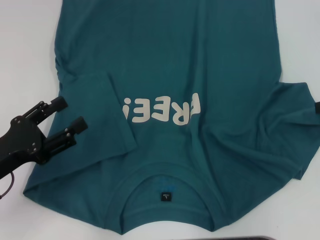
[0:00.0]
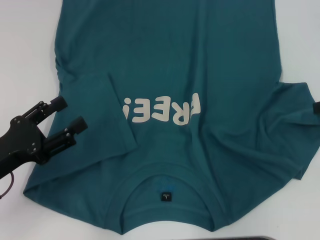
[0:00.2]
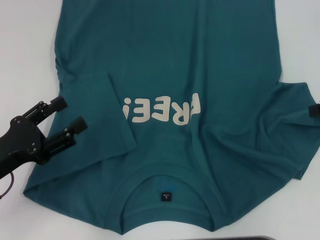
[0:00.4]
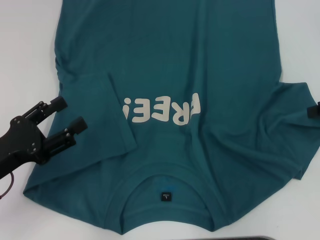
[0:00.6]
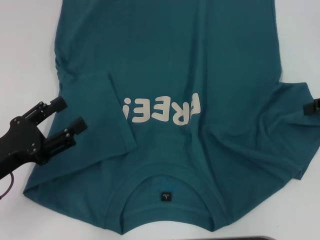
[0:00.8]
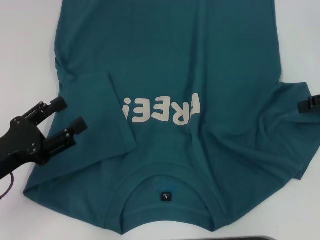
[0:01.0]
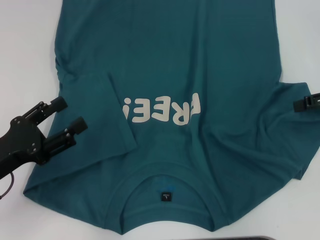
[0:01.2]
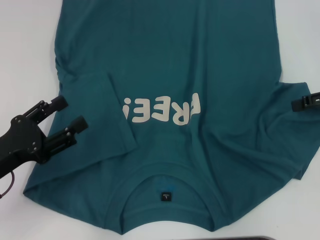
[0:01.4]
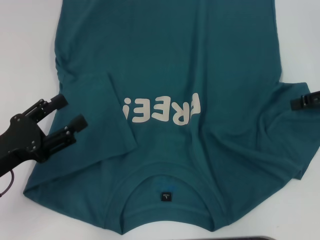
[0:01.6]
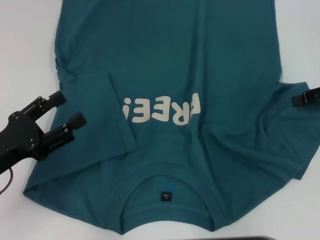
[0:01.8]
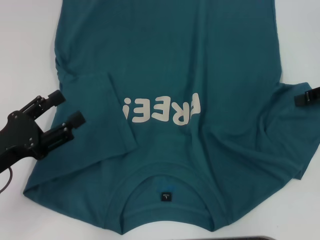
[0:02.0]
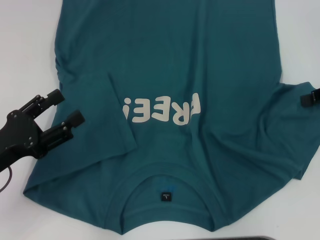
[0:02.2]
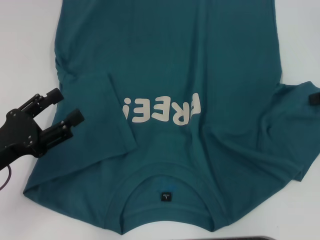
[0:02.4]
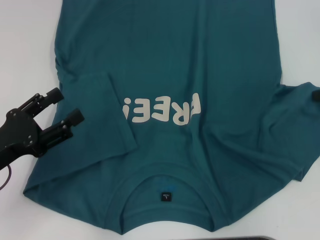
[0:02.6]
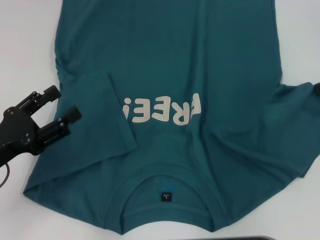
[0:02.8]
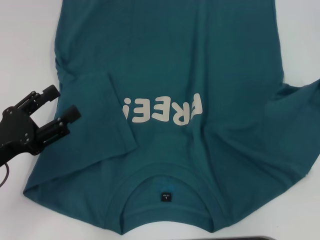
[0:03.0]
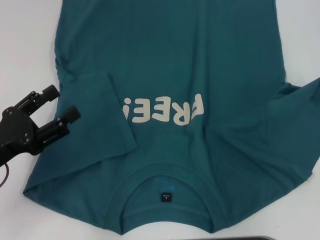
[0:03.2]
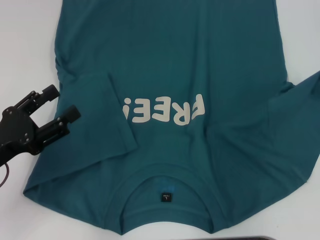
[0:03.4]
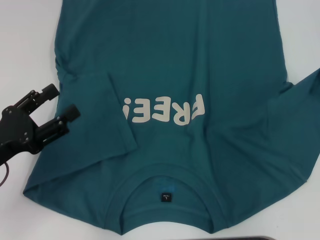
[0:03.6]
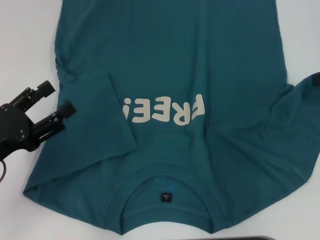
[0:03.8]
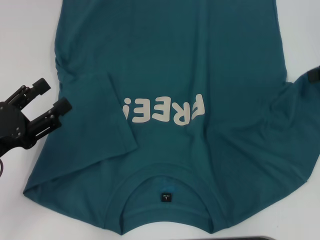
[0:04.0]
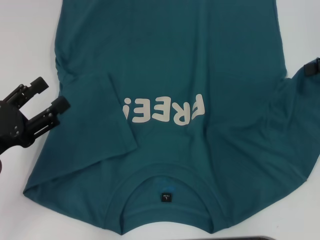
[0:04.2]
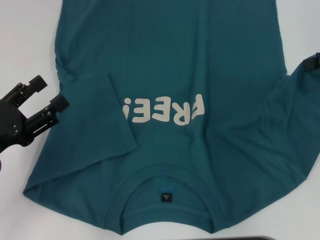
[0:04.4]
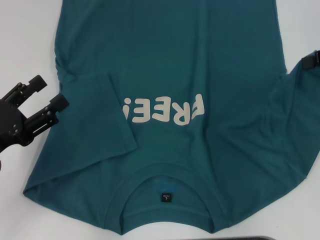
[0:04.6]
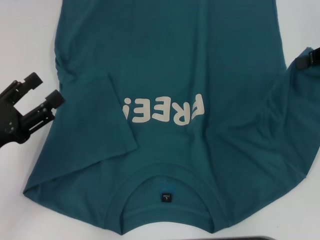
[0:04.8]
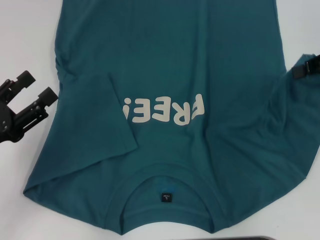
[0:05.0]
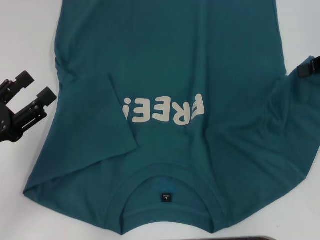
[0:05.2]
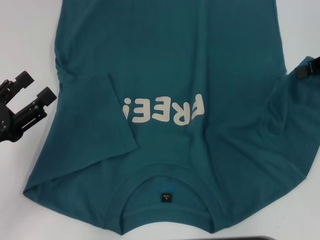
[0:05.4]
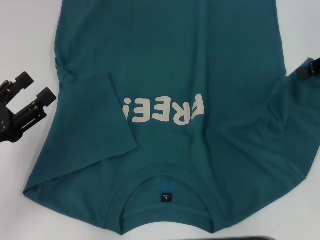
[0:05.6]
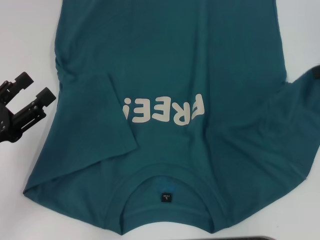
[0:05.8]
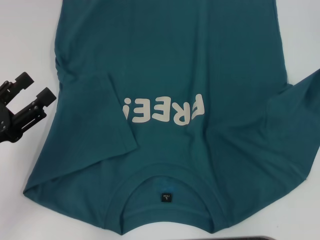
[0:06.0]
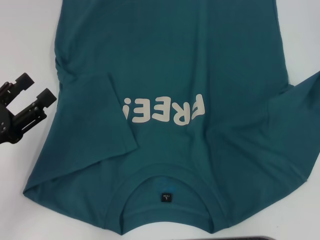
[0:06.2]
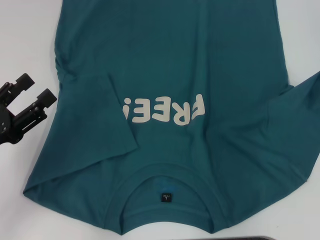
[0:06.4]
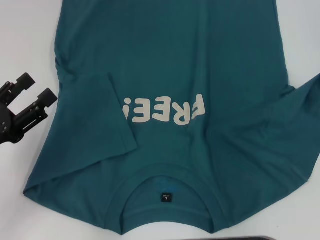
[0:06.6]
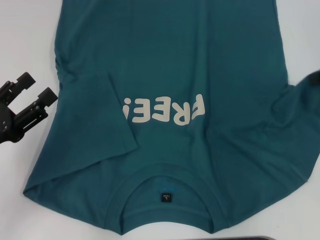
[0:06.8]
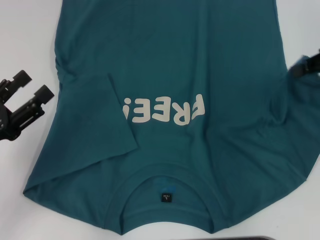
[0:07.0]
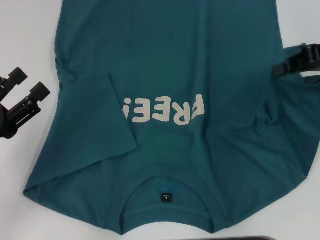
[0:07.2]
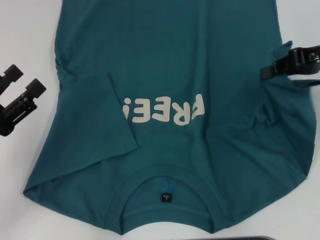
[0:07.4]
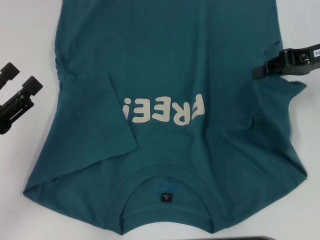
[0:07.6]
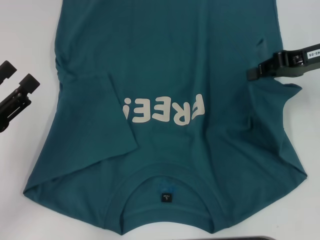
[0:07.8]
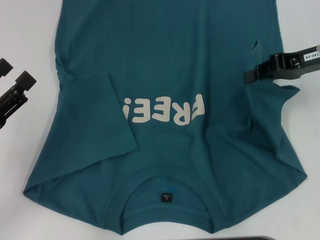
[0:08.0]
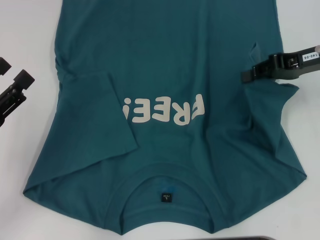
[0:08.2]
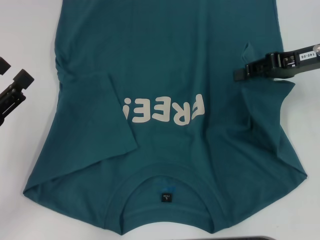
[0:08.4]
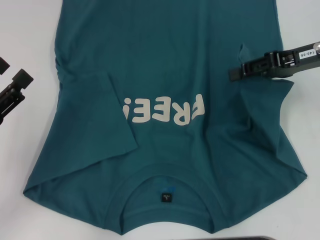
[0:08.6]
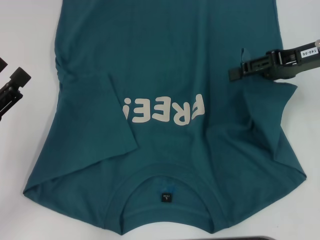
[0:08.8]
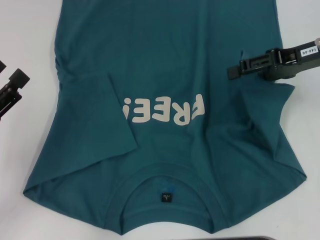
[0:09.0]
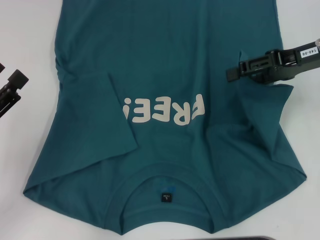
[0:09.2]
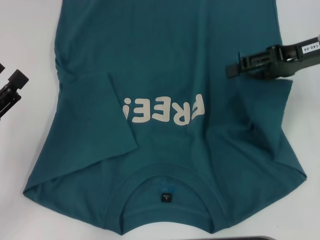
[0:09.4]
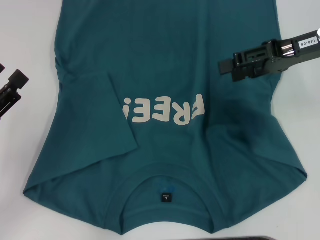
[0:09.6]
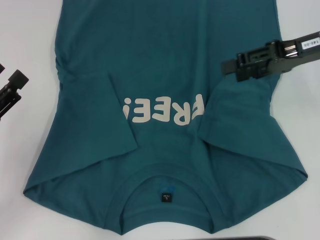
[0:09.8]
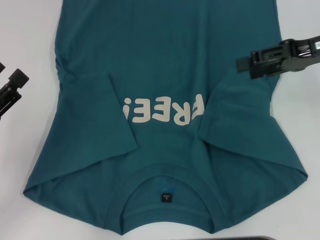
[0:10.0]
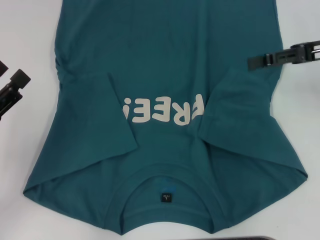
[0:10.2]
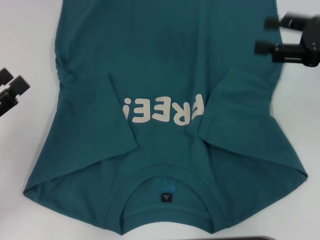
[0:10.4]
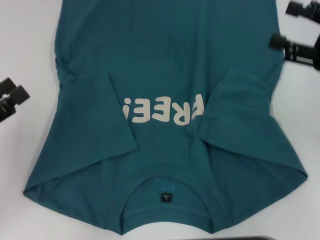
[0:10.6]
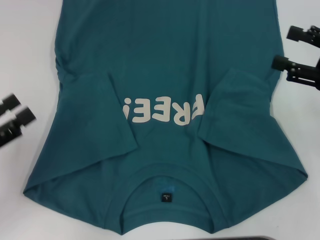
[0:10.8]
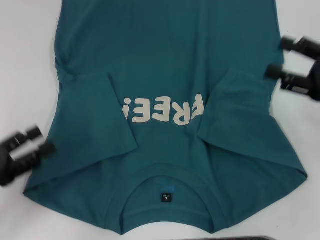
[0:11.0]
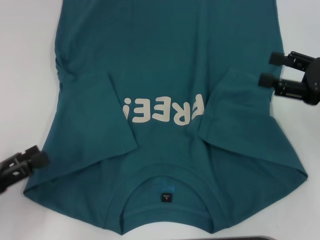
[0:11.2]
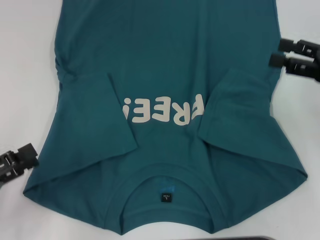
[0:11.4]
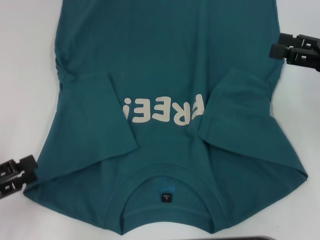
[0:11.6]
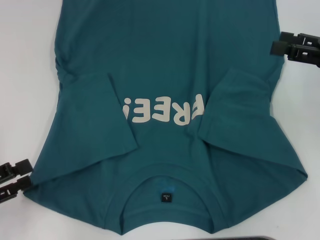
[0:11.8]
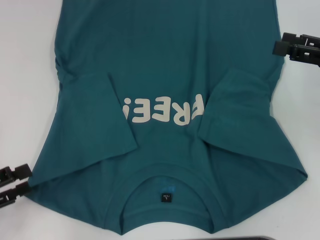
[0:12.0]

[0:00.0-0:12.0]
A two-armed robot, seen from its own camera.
Step, 0:00.0 to 0:09.6: Fold the bottom right sleeve to the right.
0:00.0 to 0:01.6: The grippers make only small movements.
0:01.6 to 0:03.0: The right gripper closes.
0:03.0 to 0:06.0: The grippers move only a little.
0:06.0 to 0:07.6: The right gripper moves to the left, about 10 cm.
0:07.6 to 0:09.0: The right gripper opens its fingers.
0:09.0 to 0:10.4: The right gripper goes some 5 cm backward.
0:10.4 to 0:12.0: The left gripper shifts roughly 5 cm backward.

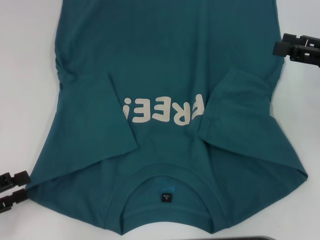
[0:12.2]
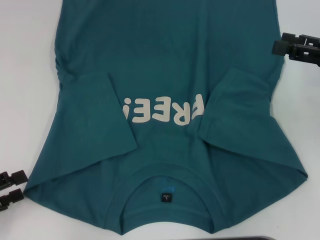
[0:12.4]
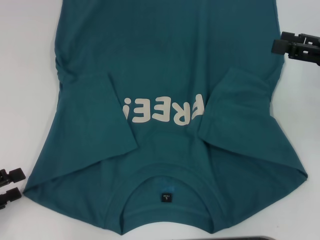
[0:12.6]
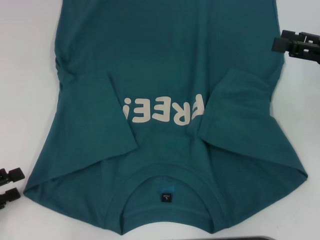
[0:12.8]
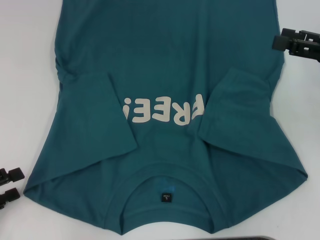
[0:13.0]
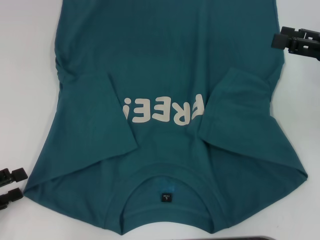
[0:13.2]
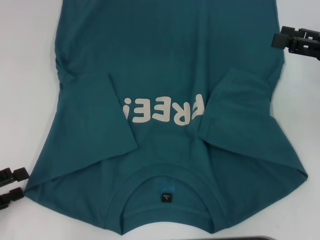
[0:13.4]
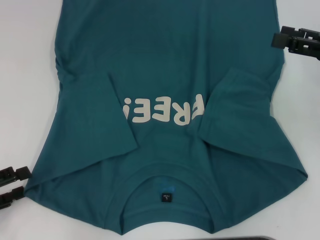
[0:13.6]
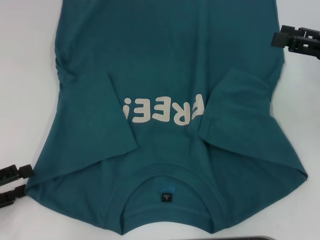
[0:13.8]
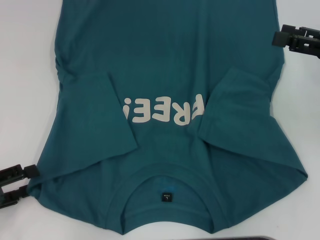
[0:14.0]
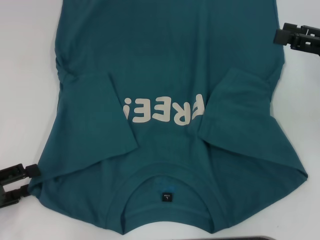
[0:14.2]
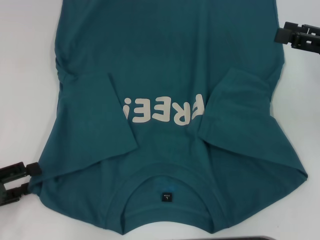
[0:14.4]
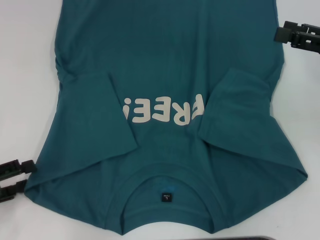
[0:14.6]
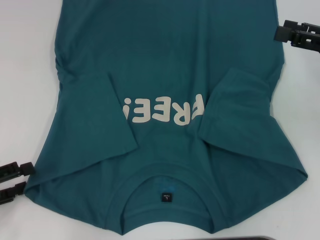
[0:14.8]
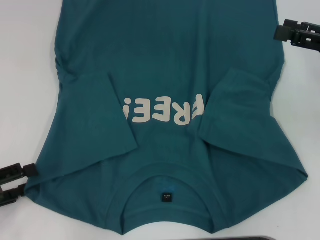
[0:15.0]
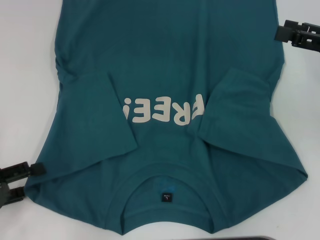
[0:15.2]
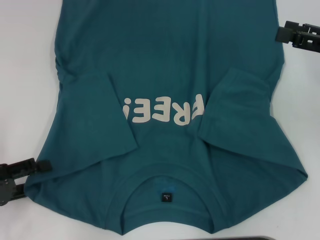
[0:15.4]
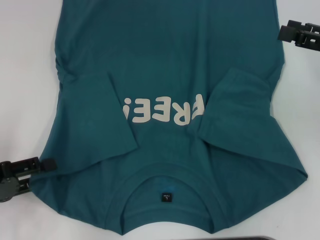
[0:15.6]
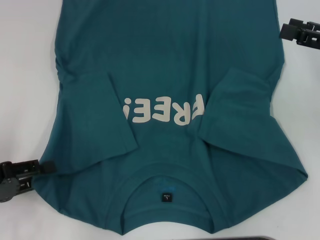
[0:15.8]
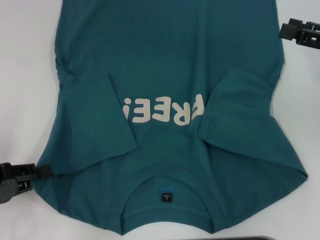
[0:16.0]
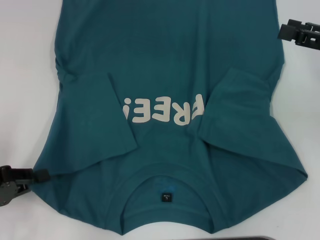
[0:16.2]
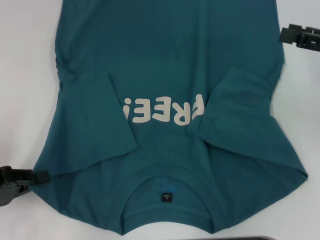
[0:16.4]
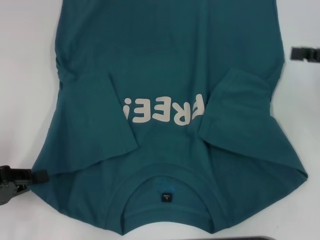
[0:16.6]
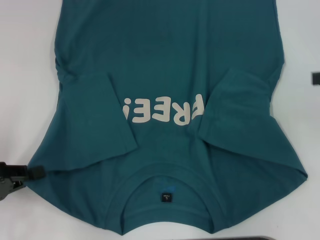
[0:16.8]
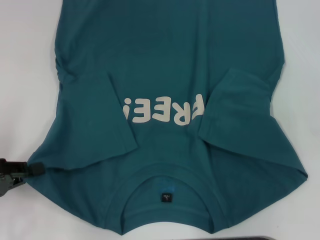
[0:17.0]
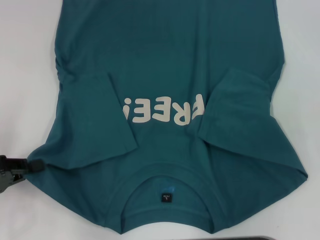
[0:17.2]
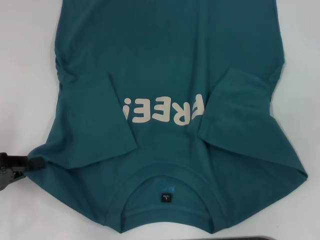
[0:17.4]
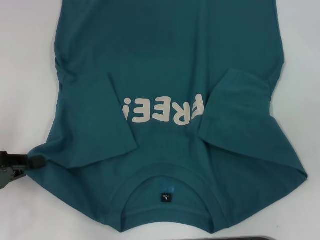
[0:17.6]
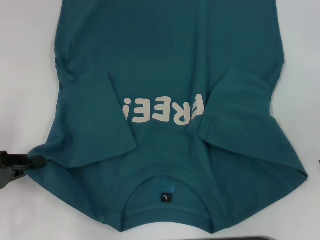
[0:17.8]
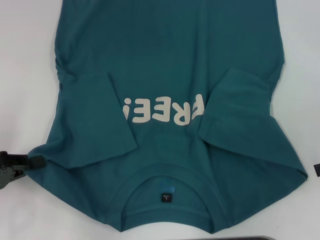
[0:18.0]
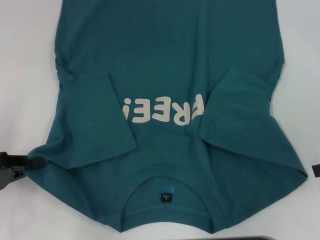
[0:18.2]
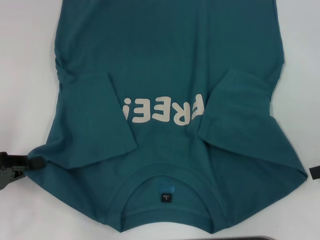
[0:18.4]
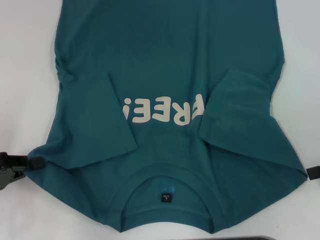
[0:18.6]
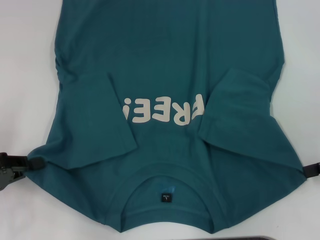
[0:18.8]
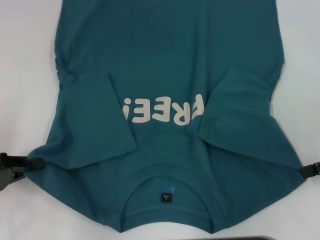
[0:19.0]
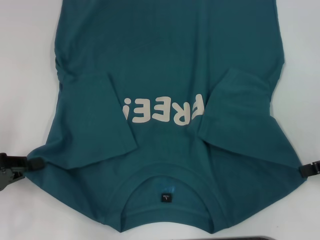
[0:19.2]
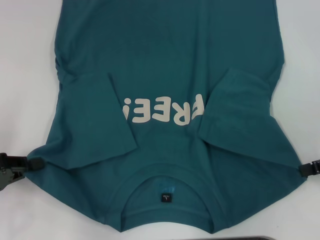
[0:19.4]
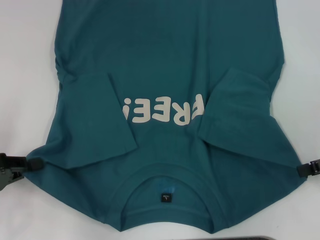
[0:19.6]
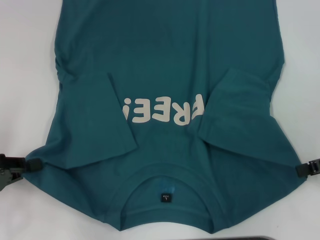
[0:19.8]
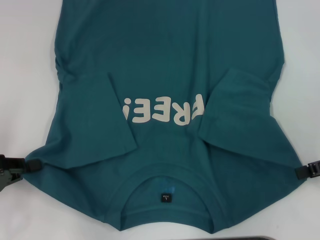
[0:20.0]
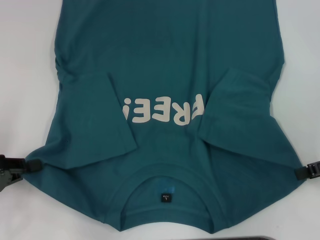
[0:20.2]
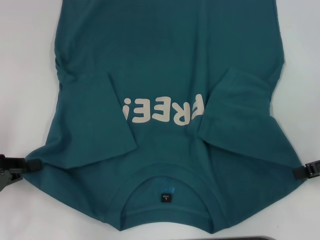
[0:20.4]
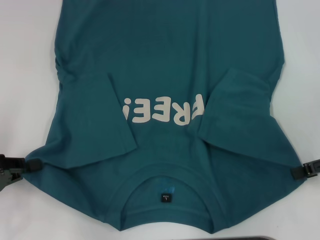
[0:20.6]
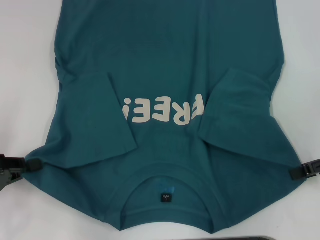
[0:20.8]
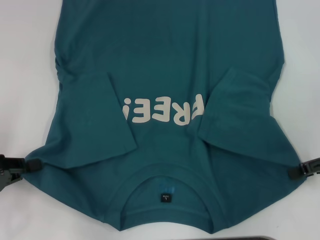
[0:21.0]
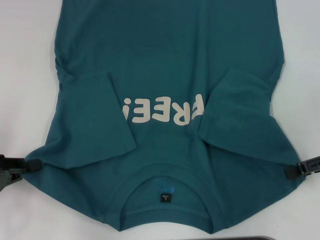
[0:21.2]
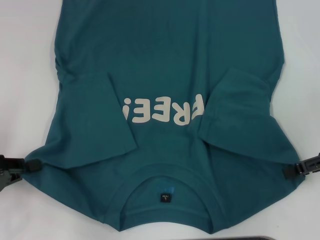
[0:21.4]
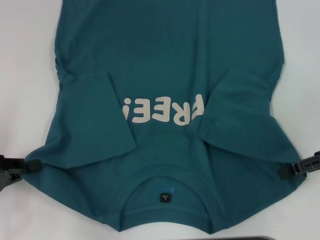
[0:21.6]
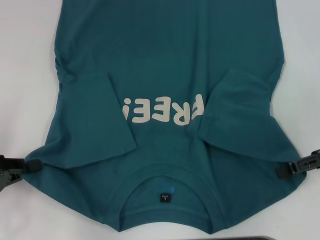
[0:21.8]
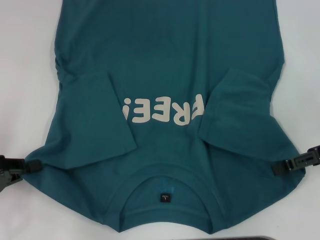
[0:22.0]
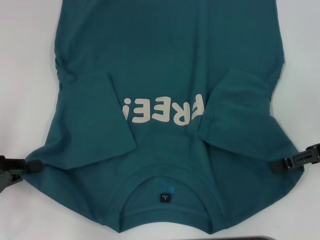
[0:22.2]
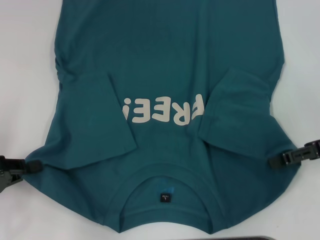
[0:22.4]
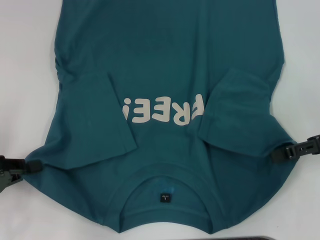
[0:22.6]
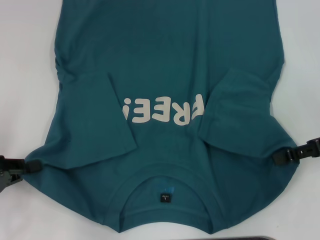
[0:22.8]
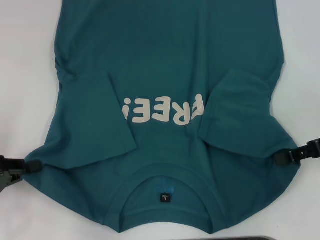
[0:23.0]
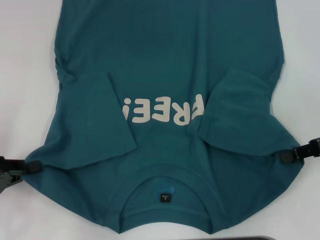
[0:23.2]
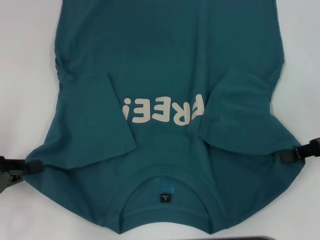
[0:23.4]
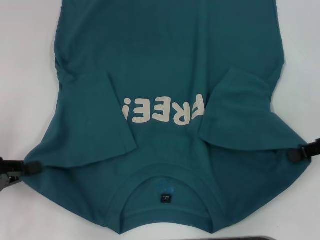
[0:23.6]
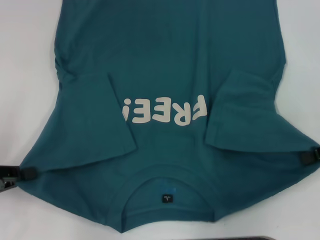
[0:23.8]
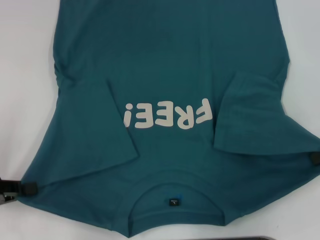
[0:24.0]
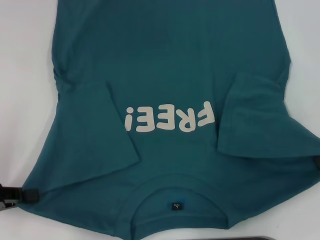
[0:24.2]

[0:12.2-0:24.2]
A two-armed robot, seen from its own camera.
Step, 0:12.2 to 0:16.6: Grab the bottom left corner with your left hand.
Step, 0:16.8 to 0:23.2: Grab the bottom right corner with your right hand.
0:12.2 to 0:15.2: The grippers move only a little.
0:15.2 to 0:16.6: The left gripper closes up.
0:16.6 to 0:18.2: The right gripper shifts about 5 cm backward.
0:18.2 to 0:19.8: The grippers make only small movements.
0:21.2 to 0:22.6: There are only small adjustments of the grippers.
0:22.6 to 0:24.2: The right gripper closes its fingers.
